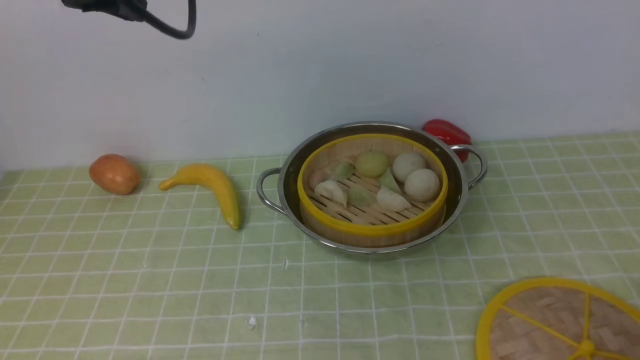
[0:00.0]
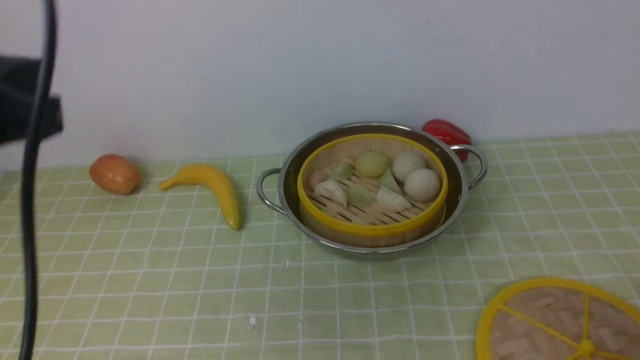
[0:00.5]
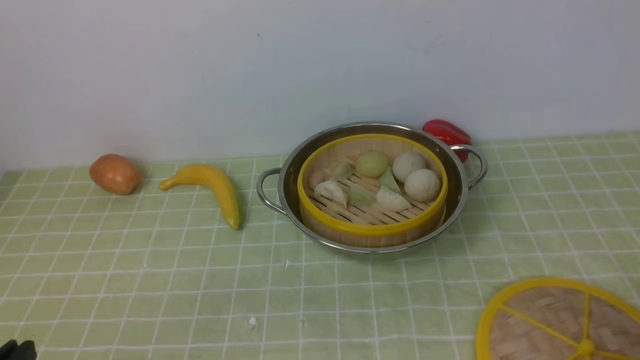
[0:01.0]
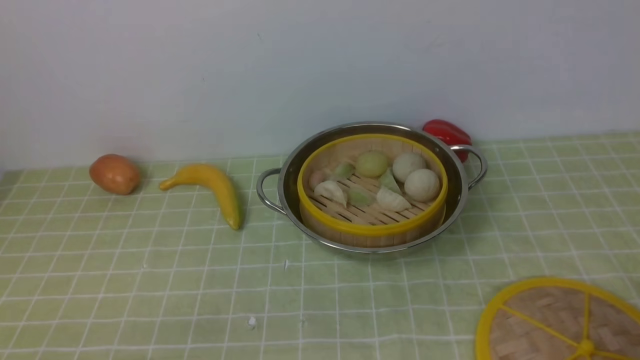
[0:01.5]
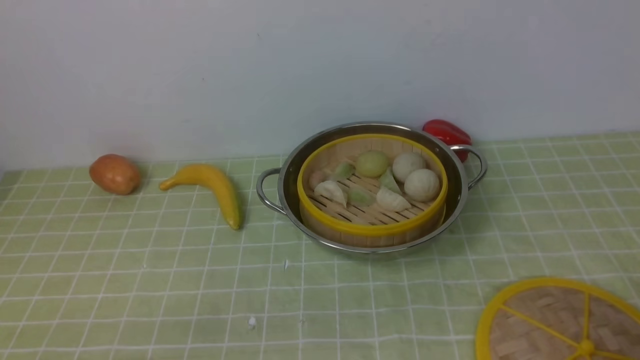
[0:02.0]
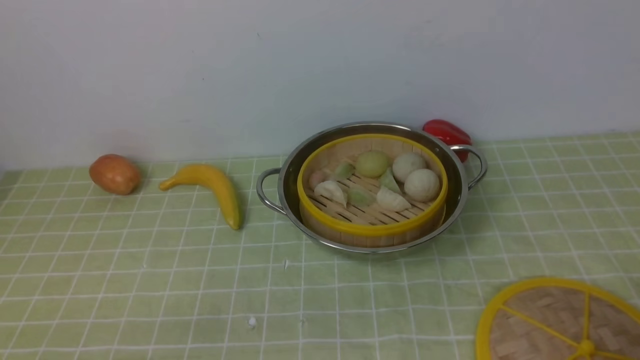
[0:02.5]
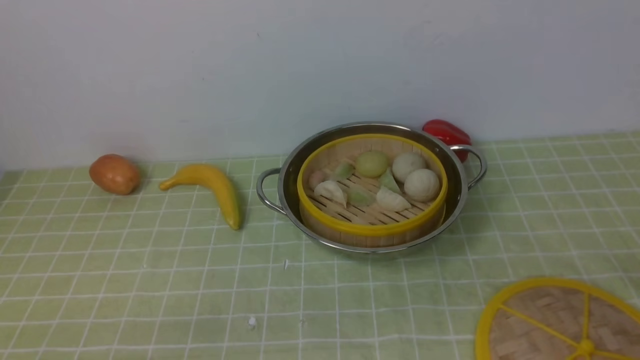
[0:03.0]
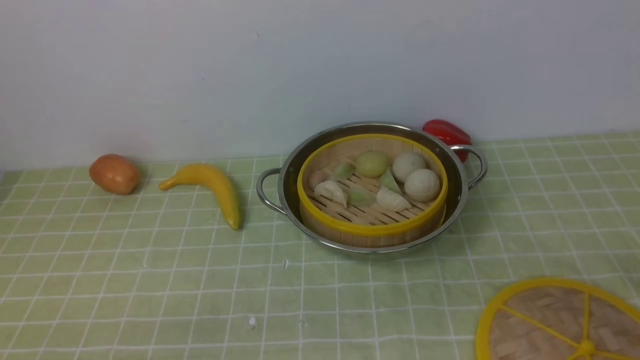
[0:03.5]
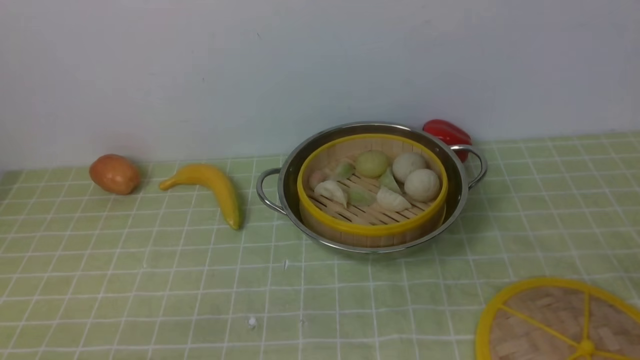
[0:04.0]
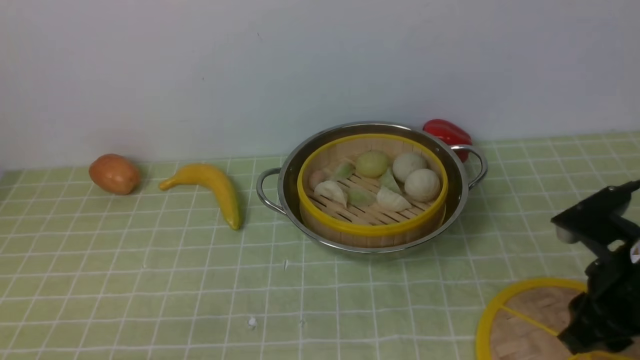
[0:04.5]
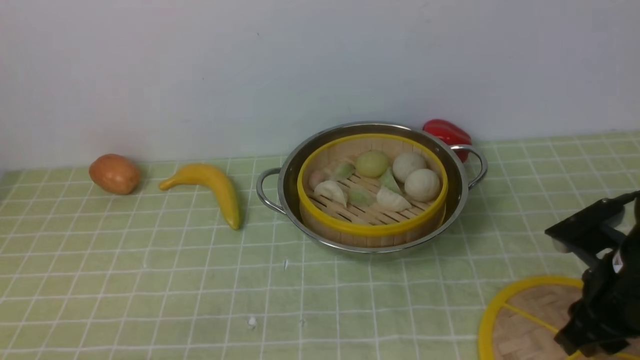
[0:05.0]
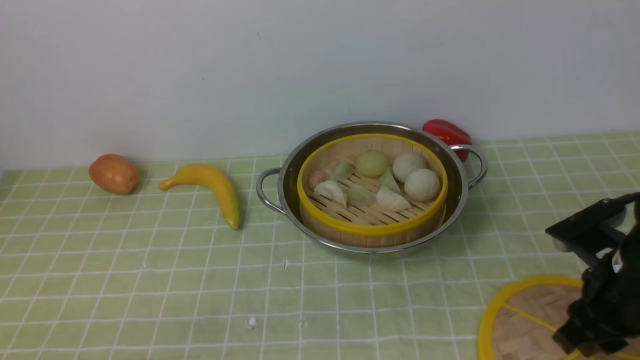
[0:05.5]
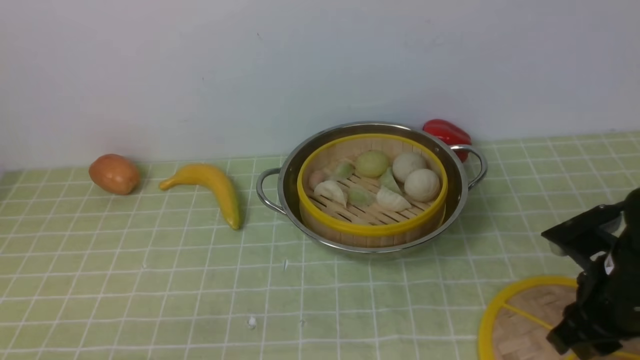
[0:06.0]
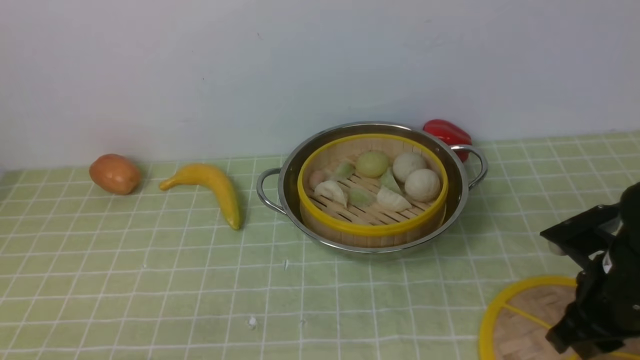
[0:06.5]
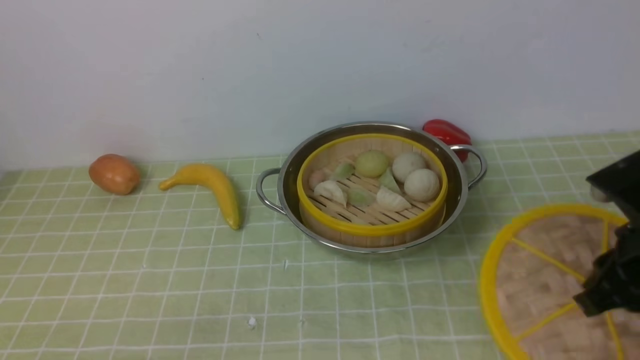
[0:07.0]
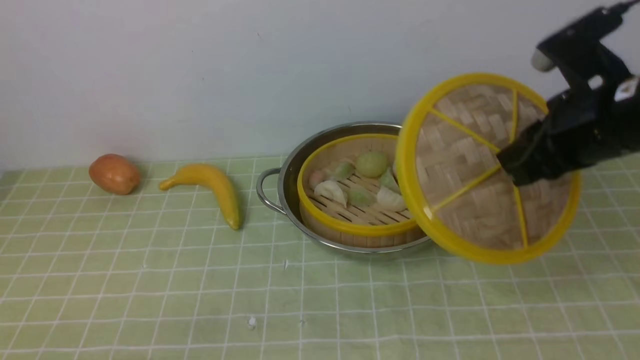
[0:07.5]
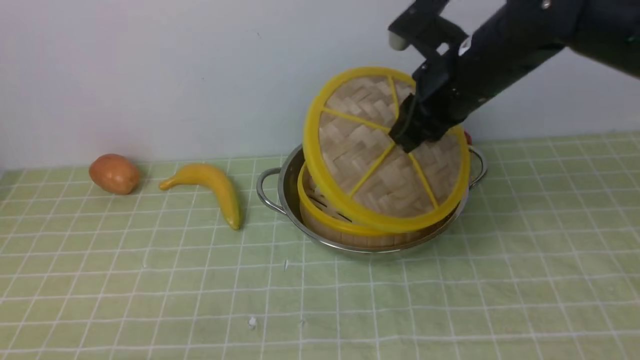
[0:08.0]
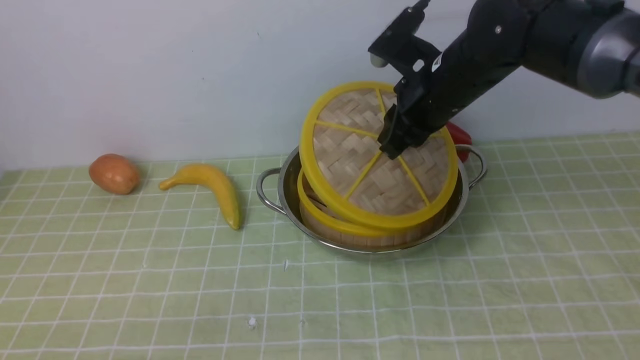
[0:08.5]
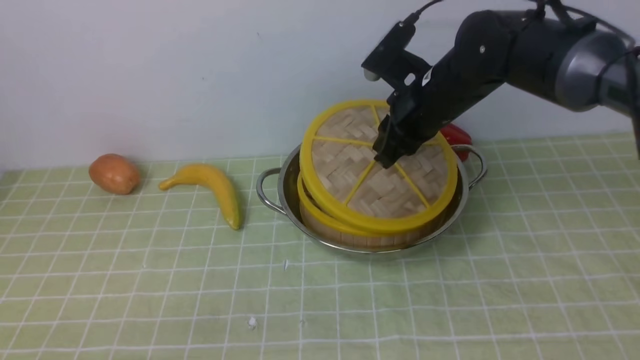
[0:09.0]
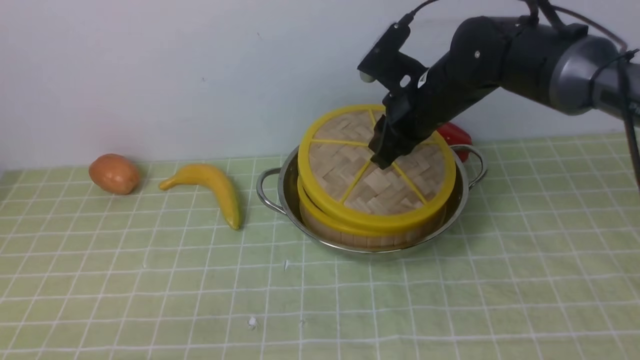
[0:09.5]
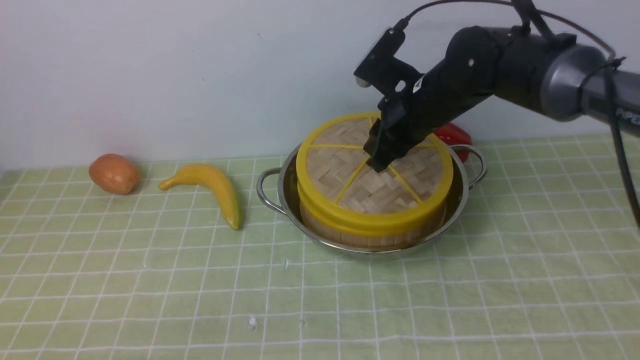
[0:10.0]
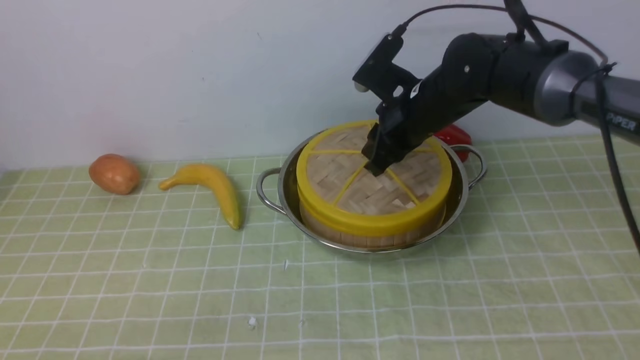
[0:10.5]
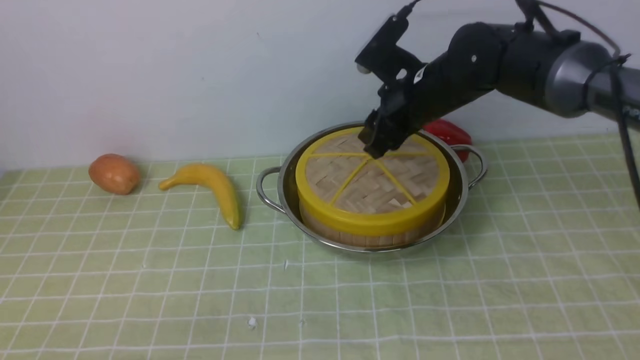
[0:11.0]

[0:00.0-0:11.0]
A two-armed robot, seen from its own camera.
Task of the whole recording: place the steamer in the pot on the green tablecloth, and put the lid on the steamer.
Step, 0:00.0 to 0:07.0: use the right arm to lift the lid of the steamer.
0:00.0 to 0:02.0: The left gripper heads backward and downward, covering about 40 cm.
0:03.5 to 0:05.5: The right gripper moves forward and downward, some 25 cm.
0:05.5 to 0:07.5: The right gripper goes some 15 cm upward and forward.
0:07.5 to 0:09.0: The right gripper is displaced forward, to the left and downward by some 15 cm.
0:09.0 to 0:11.0: The right gripper opens its fingers.

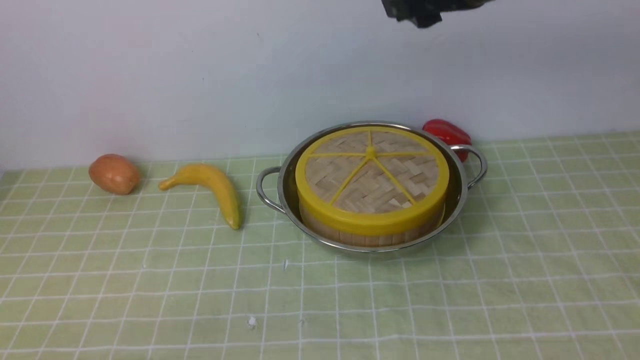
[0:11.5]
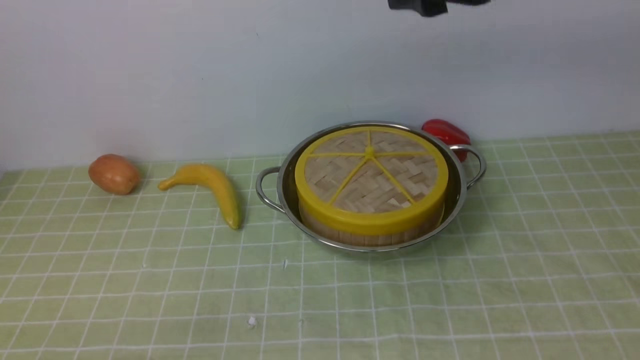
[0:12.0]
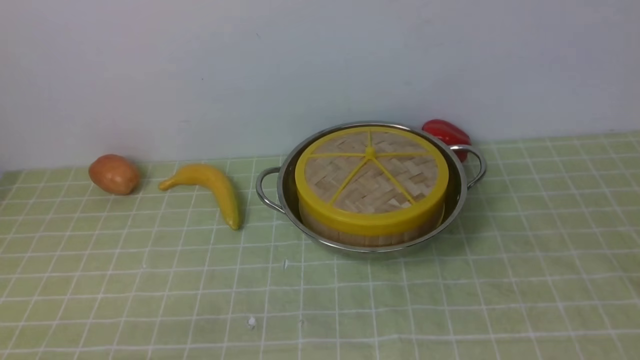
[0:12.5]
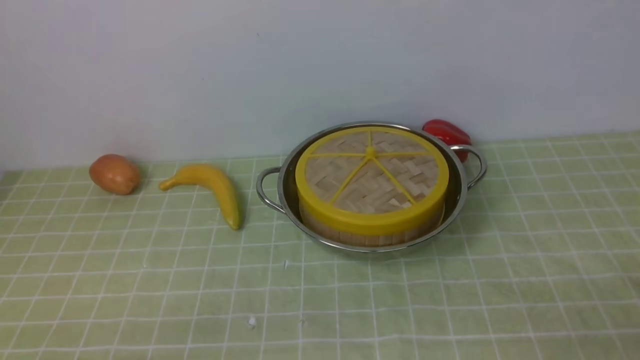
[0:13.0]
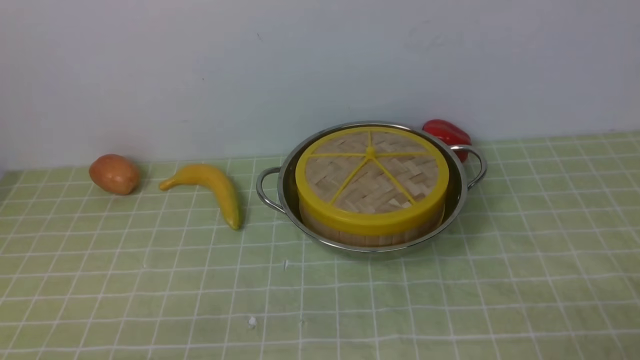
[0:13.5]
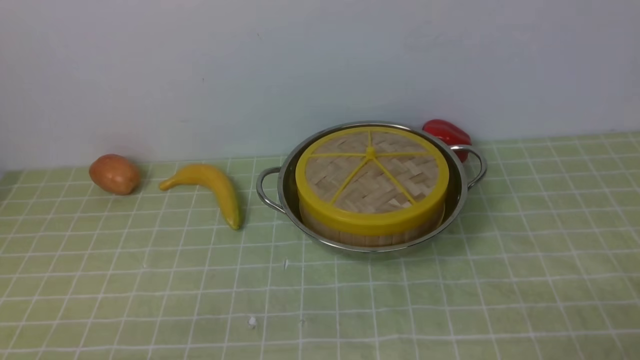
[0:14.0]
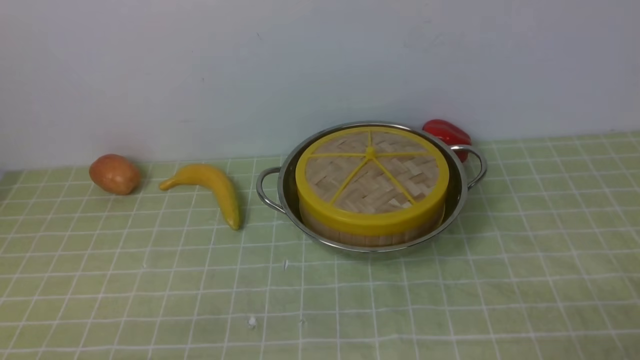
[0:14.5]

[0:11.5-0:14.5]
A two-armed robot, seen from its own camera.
Task of the whole recording: place the steamer in the pot on the green tablecloth, and put the lid on the steamer.
0:11.5 to 0:13.0: The right gripper goes about 40 cm backward, downward and to the right.
